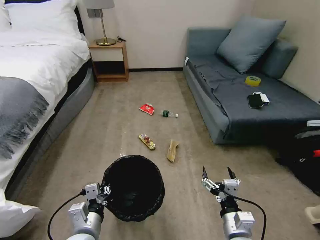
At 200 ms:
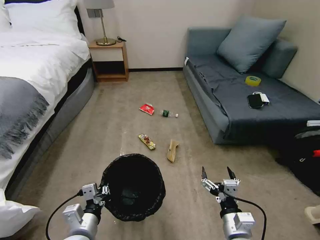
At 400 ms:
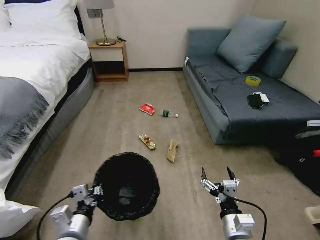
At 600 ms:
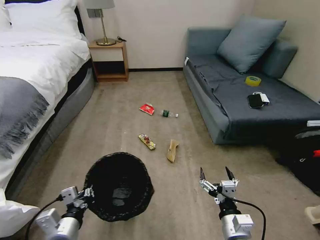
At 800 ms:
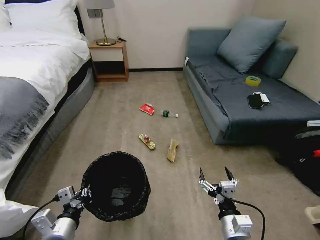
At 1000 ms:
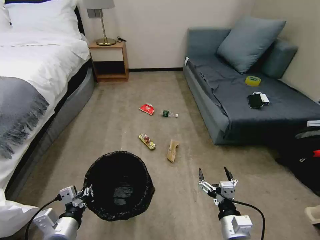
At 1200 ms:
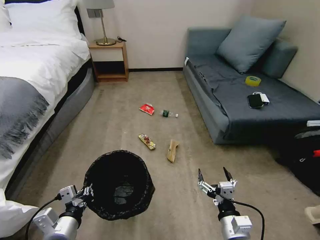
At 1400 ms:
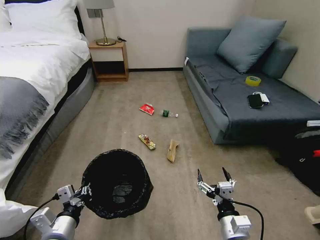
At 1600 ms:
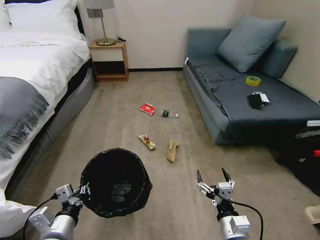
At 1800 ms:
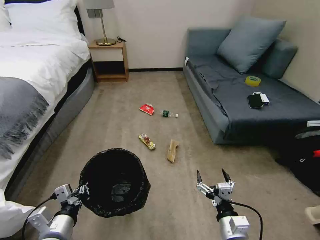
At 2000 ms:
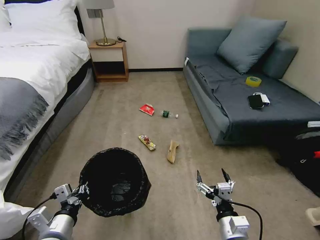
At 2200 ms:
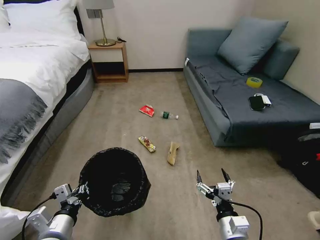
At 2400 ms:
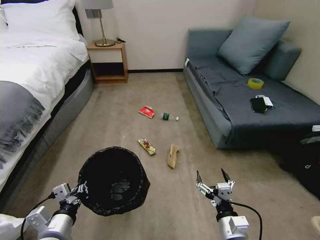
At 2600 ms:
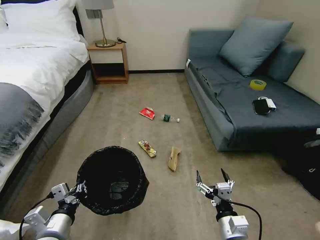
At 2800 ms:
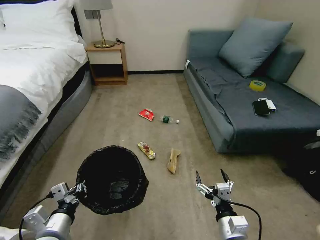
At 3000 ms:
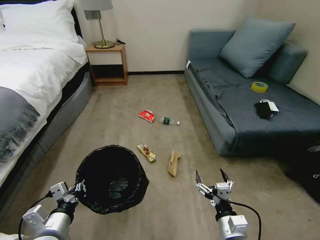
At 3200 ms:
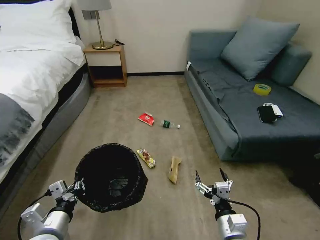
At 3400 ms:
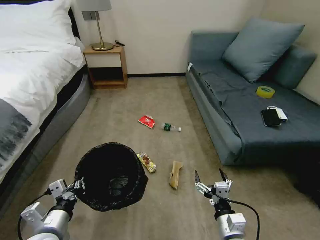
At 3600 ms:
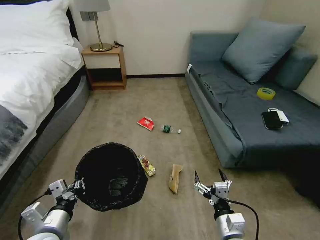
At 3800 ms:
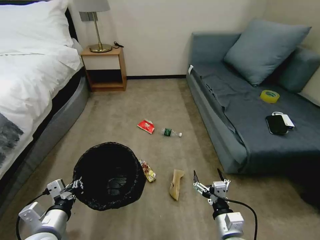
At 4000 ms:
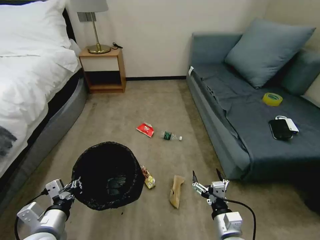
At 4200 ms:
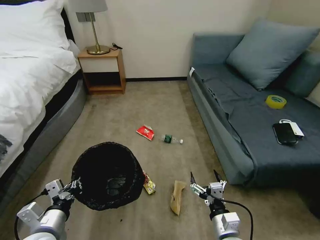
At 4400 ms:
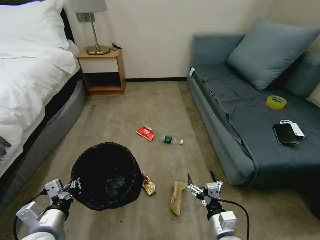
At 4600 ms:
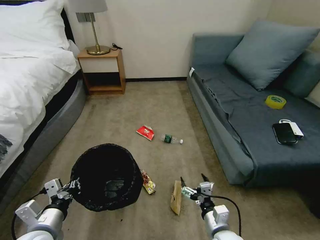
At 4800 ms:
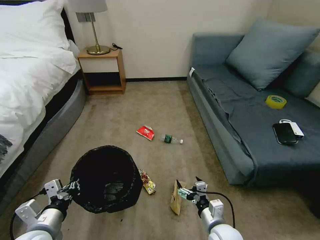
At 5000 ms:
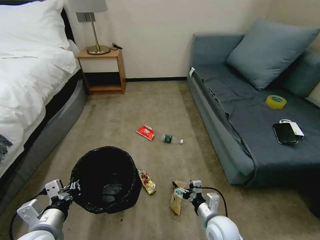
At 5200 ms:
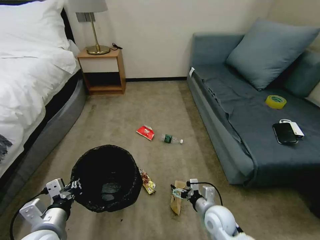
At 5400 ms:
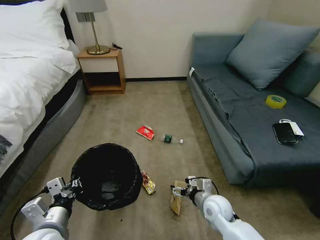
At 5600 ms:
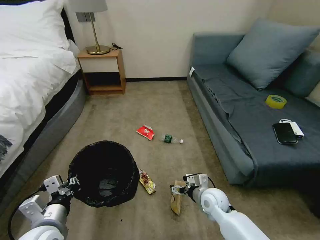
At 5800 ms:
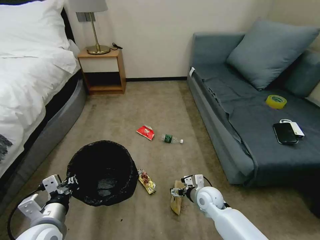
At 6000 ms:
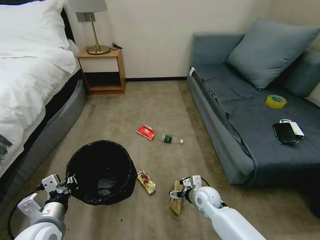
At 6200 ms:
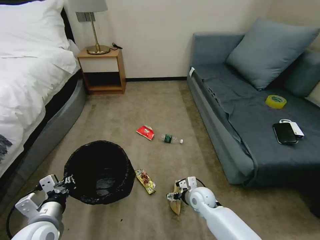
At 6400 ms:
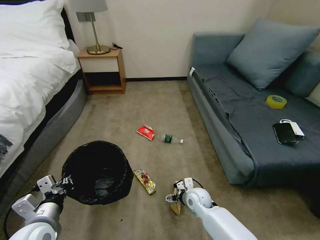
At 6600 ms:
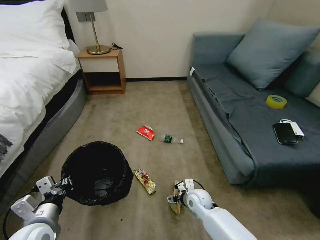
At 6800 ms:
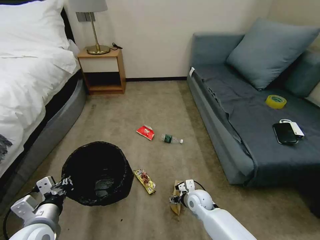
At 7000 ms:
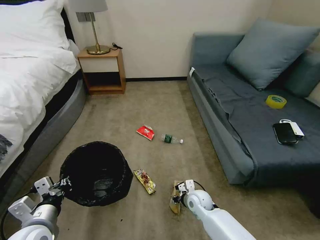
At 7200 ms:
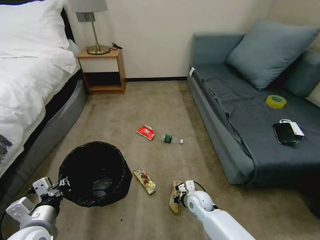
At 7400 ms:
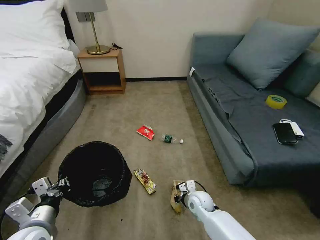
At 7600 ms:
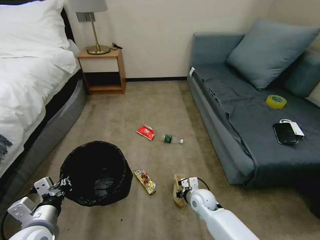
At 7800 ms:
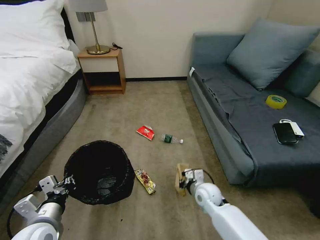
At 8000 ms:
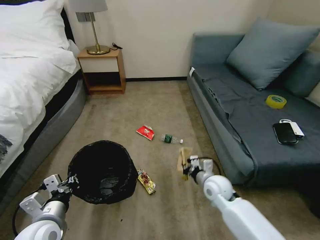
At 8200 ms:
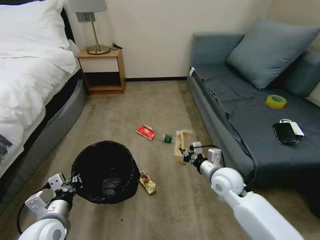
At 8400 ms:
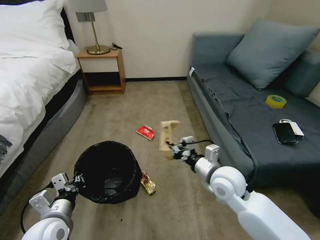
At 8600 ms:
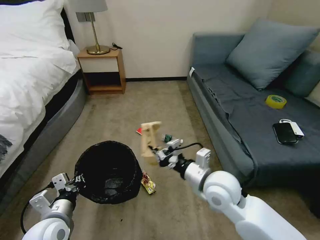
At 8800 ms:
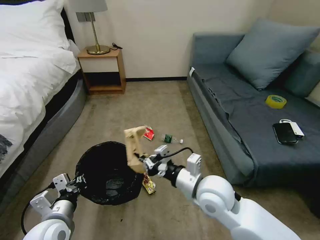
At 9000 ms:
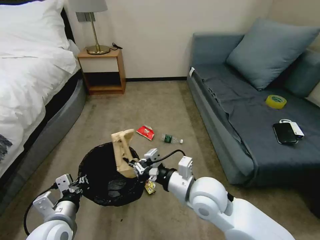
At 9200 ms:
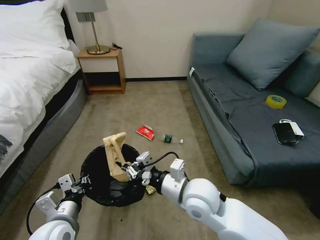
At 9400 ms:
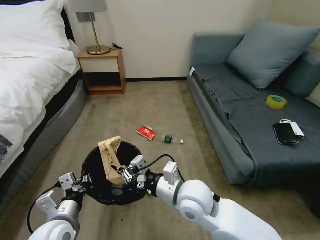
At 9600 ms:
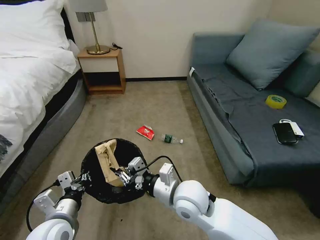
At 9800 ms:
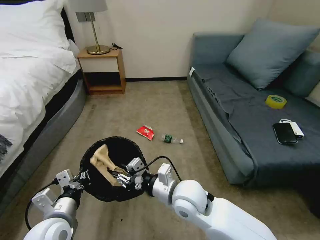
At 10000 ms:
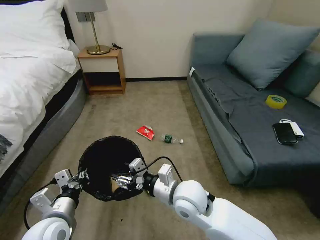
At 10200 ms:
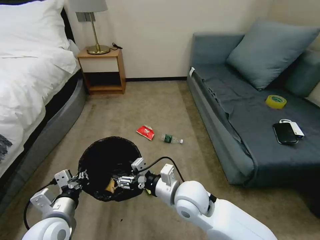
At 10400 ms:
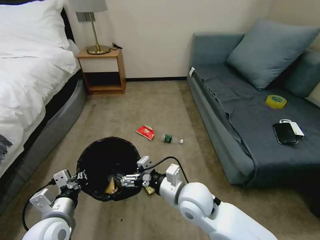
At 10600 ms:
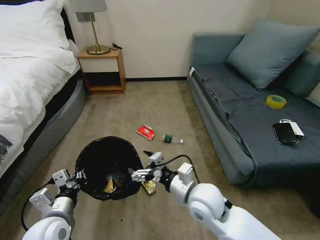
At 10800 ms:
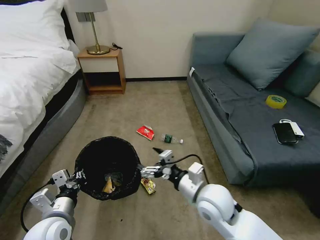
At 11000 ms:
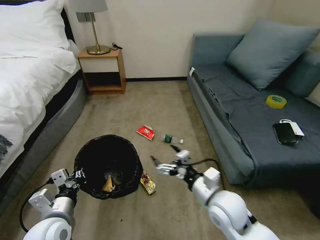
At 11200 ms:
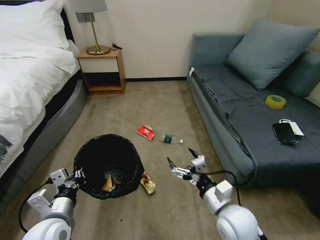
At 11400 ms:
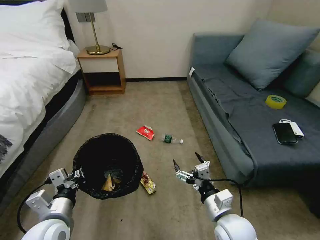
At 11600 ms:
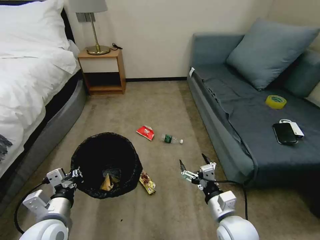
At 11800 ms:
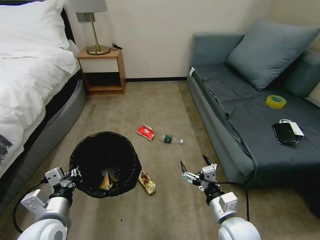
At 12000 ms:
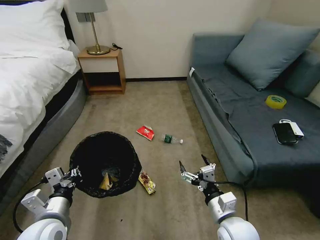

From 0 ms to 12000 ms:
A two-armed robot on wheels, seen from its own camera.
Task of the whole recording: Pick up the trash bin, then pick up the garbage on the floor and place it into the trash bin.
From 0 ms to 1600 ms: The left gripper shifts about 5 cm to the left.
From 4400 ms to 6000 ms: The right gripper shifts roughly 20 cm forward.
From 6000 ms to 7600 ms: The right gripper closes its fingers.
From 7600 ms to 9000 ms: The right gripper moves upward, roughly 25 cm.
From 9000 ms to 10400 ms: The right gripper opens.
From 10400 ms to 12000 ms: The right gripper is displaced to the right, backward and downward by approximately 15 cm.

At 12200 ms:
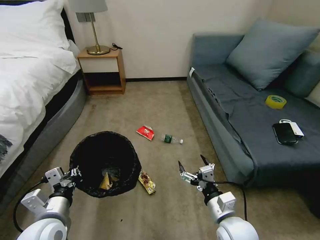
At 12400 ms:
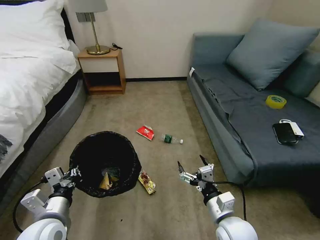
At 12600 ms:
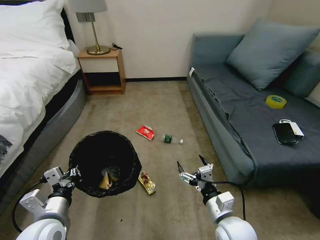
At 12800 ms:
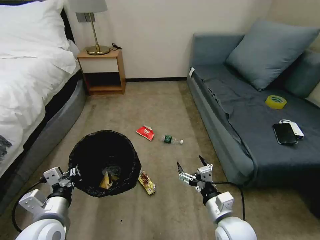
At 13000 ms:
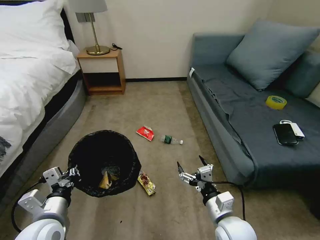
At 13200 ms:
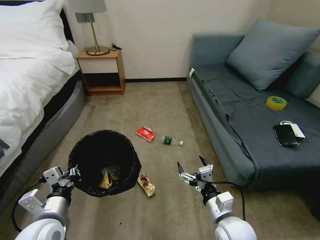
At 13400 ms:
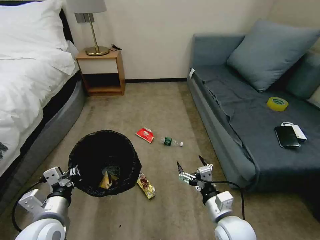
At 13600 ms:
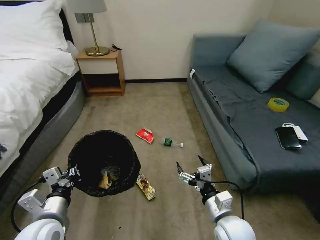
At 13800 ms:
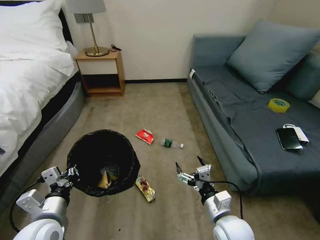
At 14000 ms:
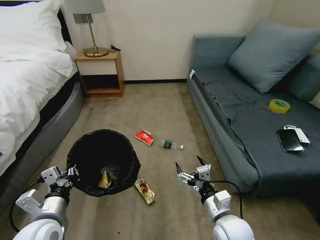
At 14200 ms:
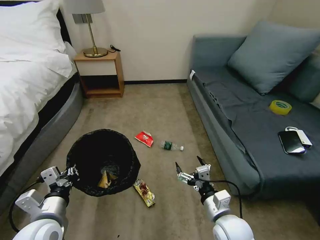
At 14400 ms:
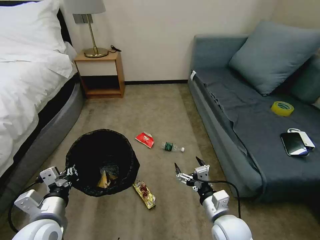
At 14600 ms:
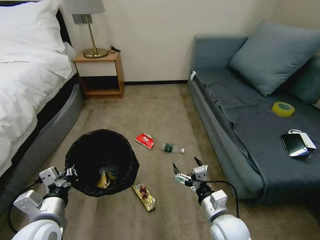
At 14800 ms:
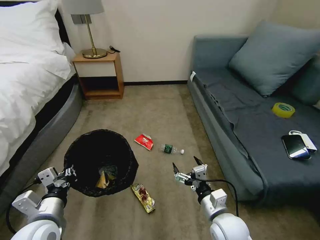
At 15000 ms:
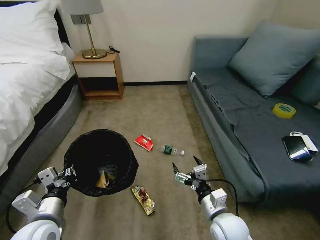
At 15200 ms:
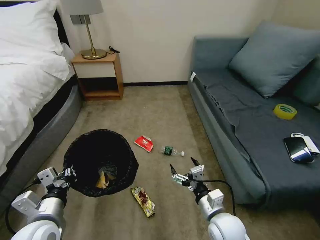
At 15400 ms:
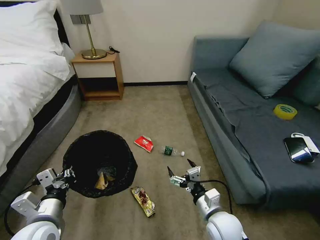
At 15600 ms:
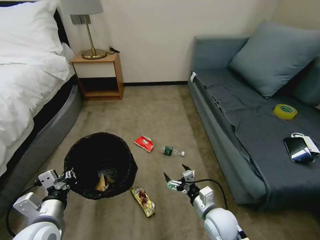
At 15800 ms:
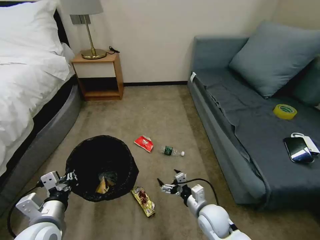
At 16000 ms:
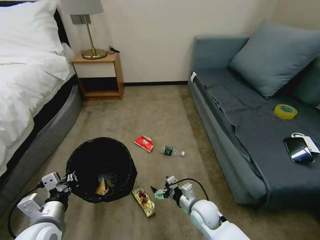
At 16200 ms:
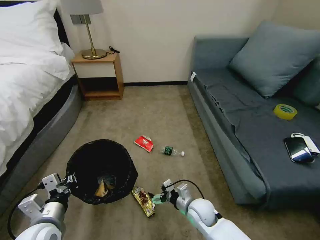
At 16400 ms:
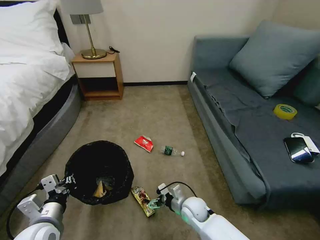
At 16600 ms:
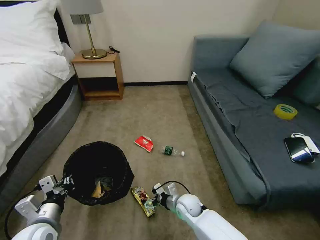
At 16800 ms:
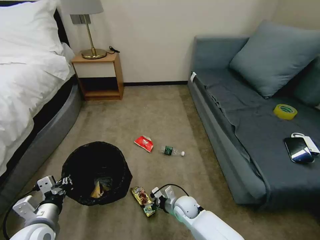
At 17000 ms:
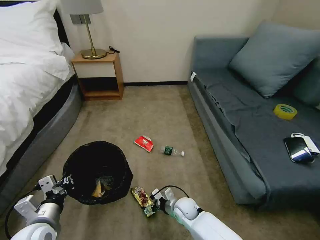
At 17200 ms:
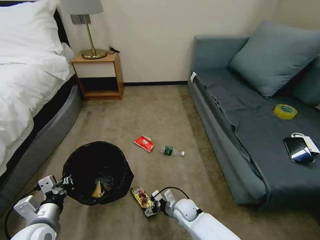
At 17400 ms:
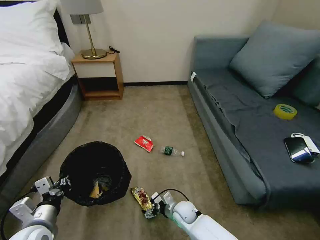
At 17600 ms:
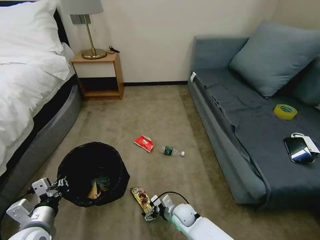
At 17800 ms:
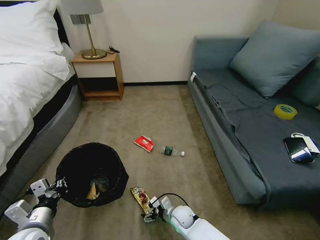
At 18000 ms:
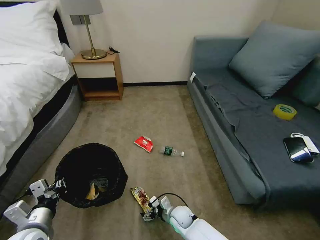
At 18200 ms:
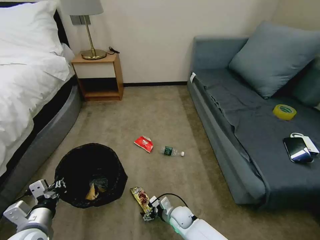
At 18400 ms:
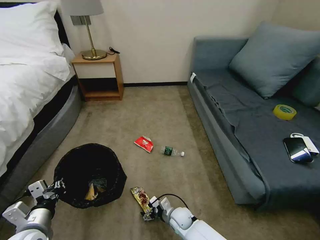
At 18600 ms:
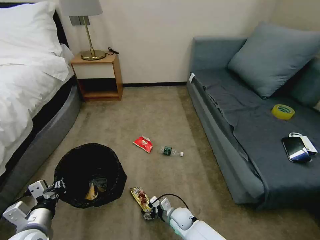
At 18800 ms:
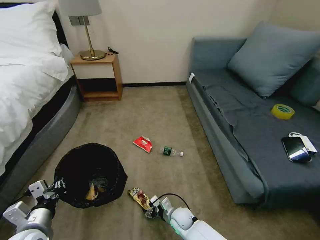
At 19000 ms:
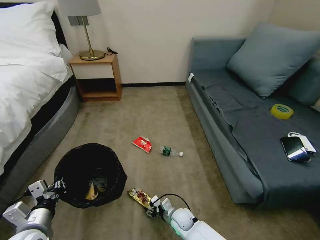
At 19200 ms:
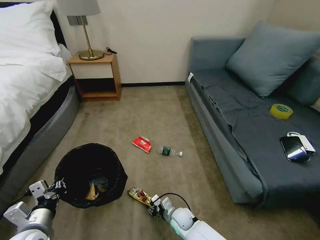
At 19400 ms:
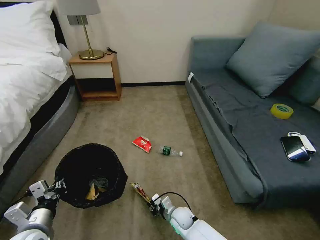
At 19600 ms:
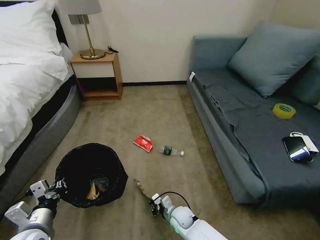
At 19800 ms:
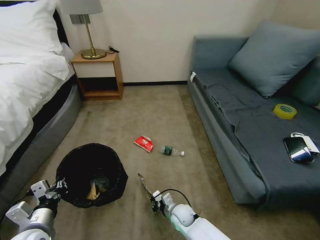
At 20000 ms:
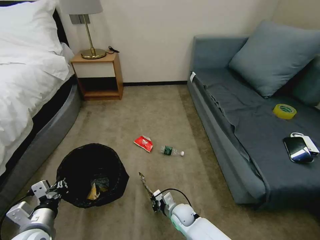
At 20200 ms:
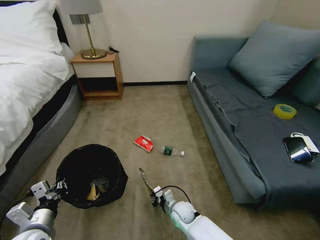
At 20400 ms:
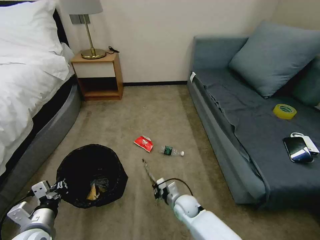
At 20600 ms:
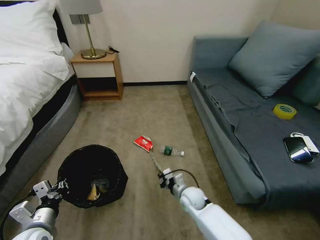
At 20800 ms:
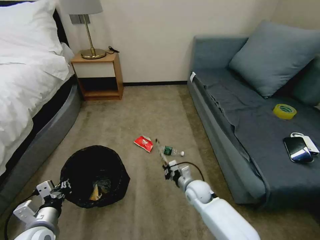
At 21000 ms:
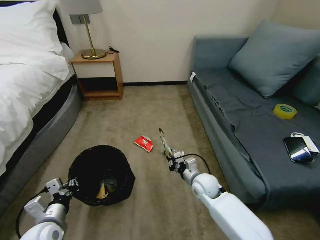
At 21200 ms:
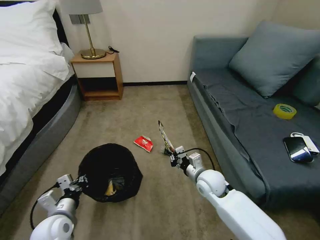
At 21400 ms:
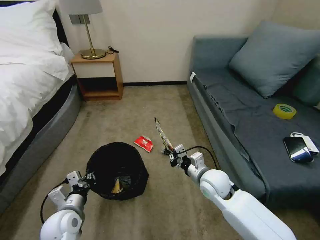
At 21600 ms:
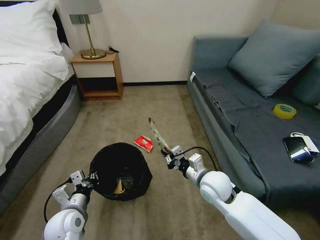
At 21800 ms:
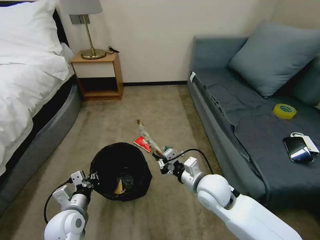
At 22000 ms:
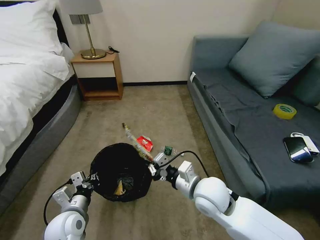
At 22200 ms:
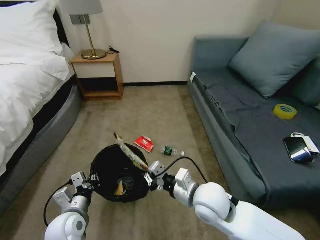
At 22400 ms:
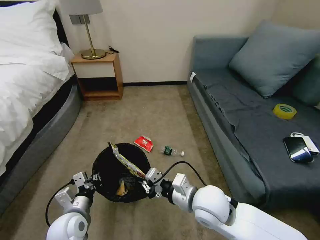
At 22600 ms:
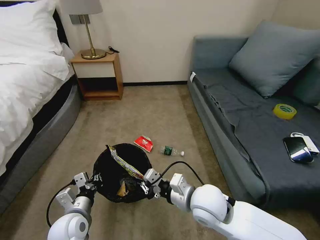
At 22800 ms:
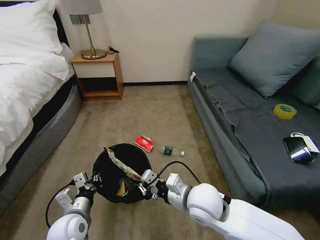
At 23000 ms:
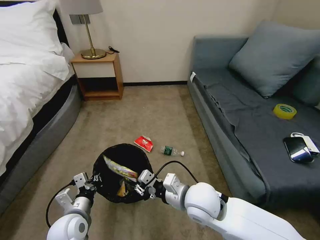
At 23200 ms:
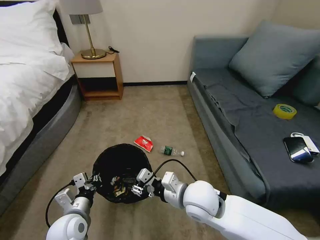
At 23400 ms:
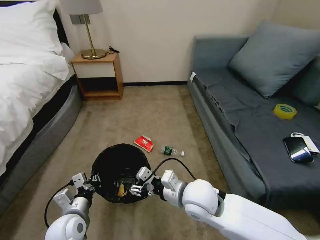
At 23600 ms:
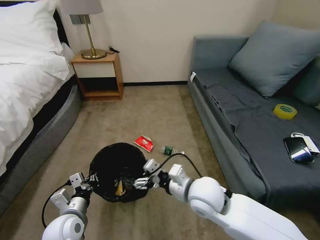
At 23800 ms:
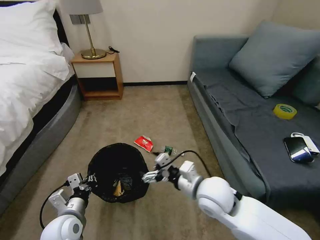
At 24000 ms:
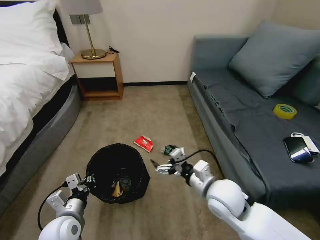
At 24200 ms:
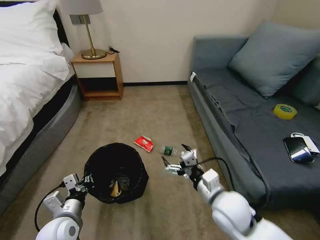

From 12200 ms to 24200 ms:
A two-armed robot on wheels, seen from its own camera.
Task of the whole recording: Pick up the trash bin, then pick up the garbage on the floor and place it into the trash bin.
From 12200 ms to 13800 ms: Both grippers stay put.
From 15200 ms to 16600 ms: The right gripper shifts approximately 20 cm downward, forward and to the left.
From 16600 ms to 18200 ms: The right gripper moves downward, roughly 5 cm.
From 18200 ms to 19800 ms: The right gripper closes its fingers.
From 19800 ms to 21200 ms: The right gripper heads upward and to the right, covering about 20 cm. The left gripper ends up approximately 5 cm from where it was.
From 21200 ms to 22600 ms: The right gripper goes roughly 15 cm backward, upward and to the left.
From 22600 ms to 24200 ms: The right gripper moves to the right, some 5 cm, and opens up.
